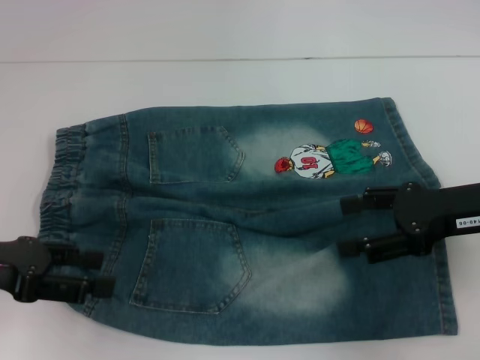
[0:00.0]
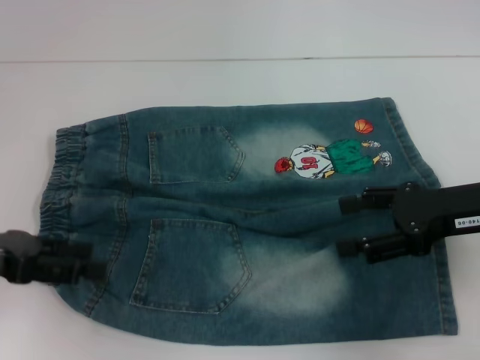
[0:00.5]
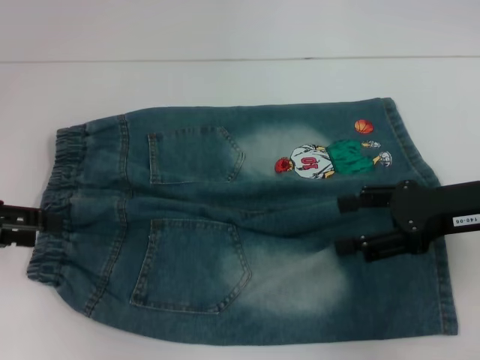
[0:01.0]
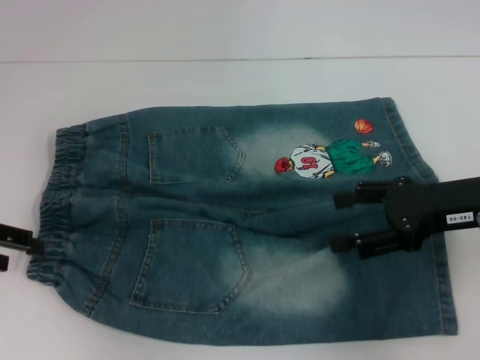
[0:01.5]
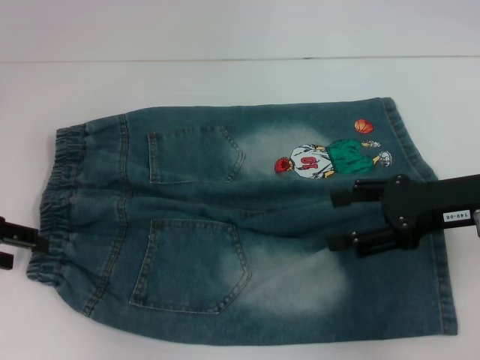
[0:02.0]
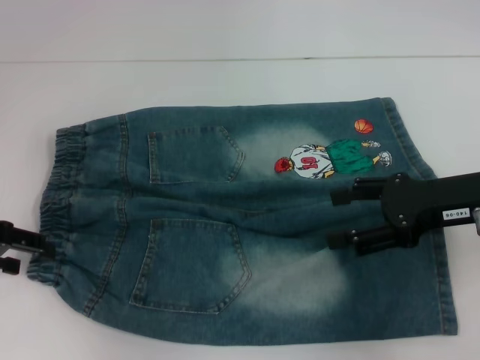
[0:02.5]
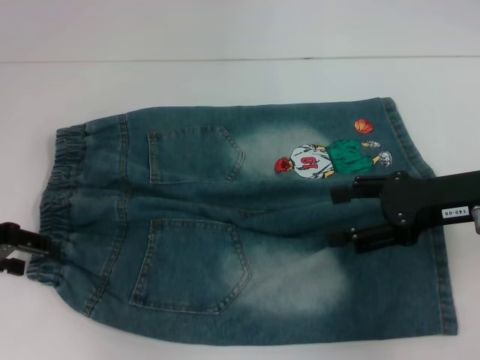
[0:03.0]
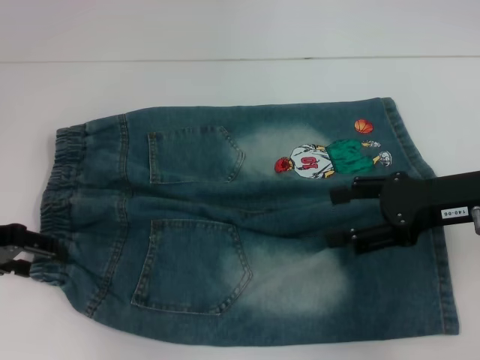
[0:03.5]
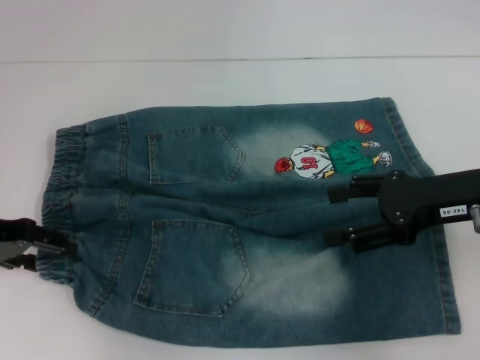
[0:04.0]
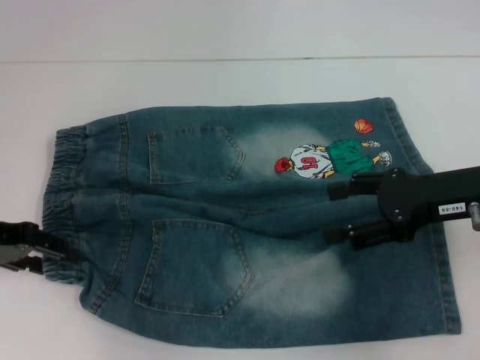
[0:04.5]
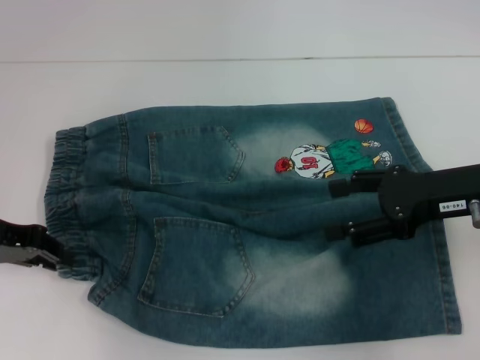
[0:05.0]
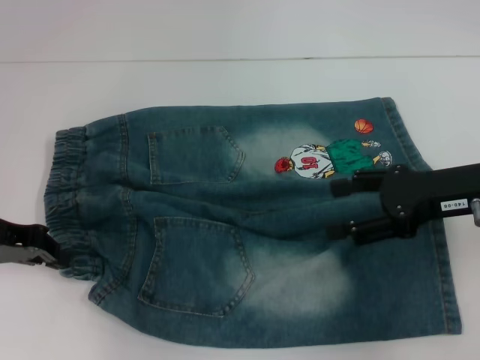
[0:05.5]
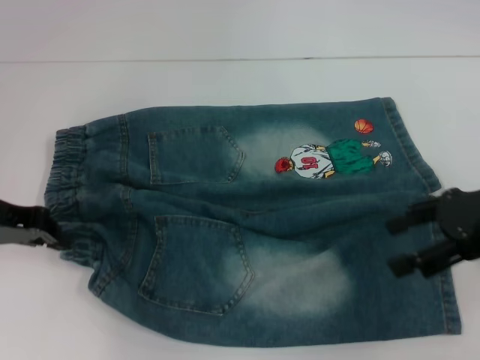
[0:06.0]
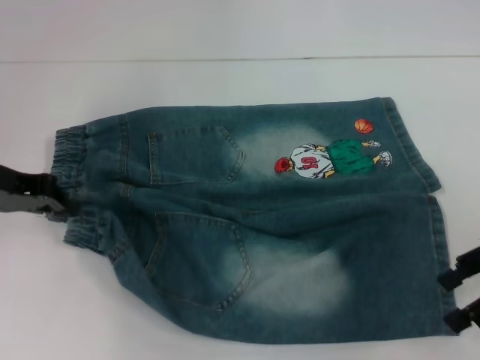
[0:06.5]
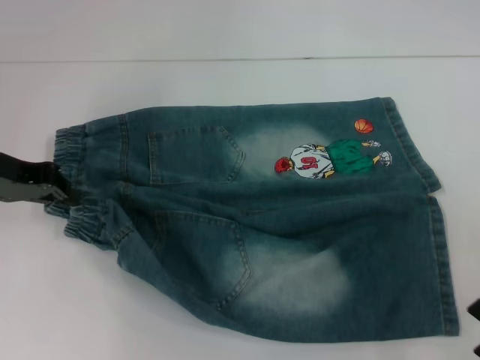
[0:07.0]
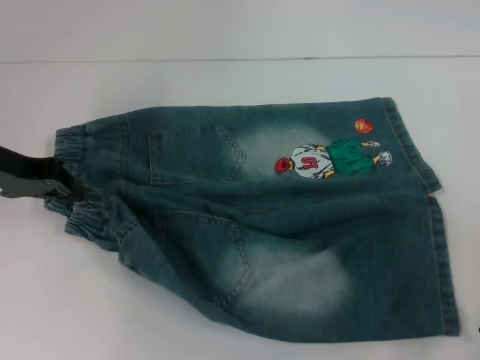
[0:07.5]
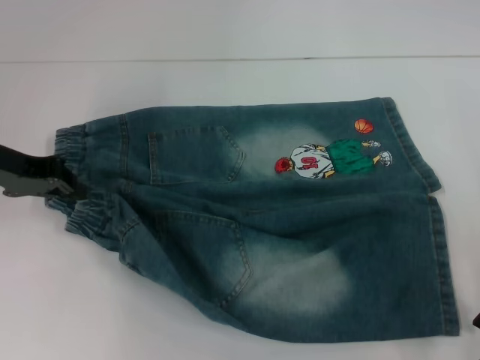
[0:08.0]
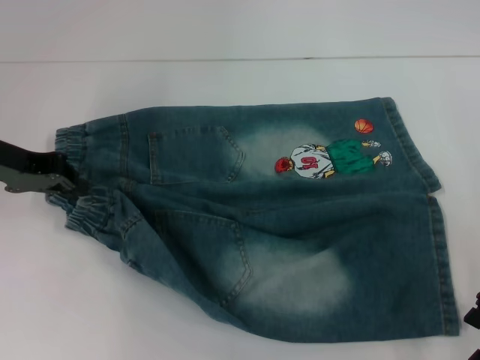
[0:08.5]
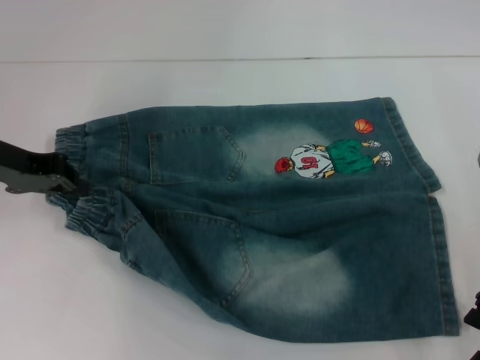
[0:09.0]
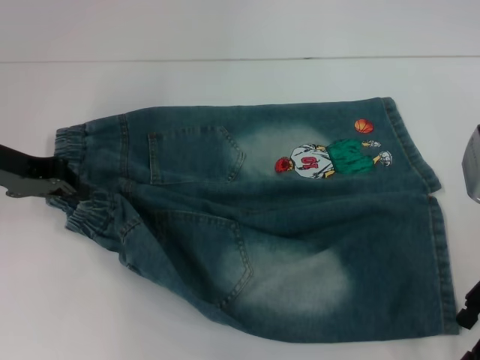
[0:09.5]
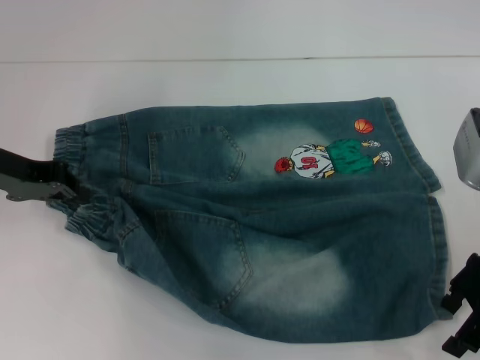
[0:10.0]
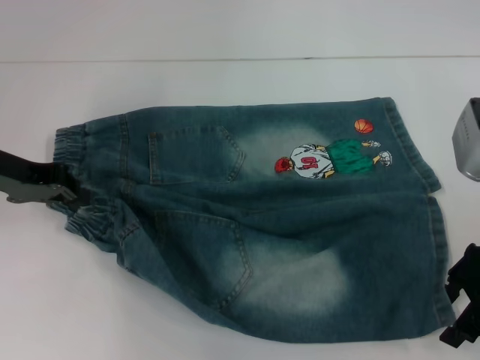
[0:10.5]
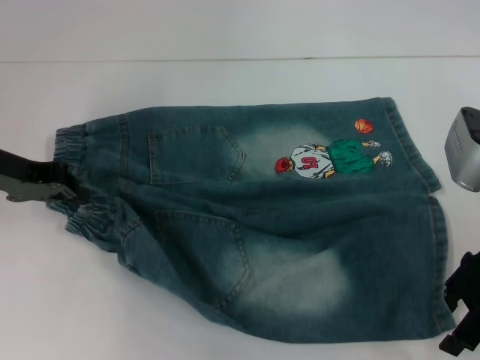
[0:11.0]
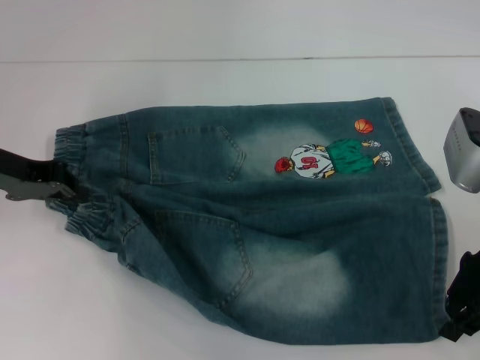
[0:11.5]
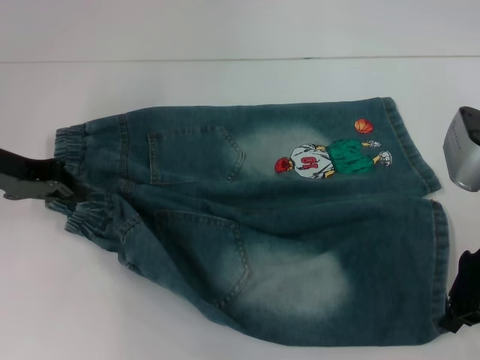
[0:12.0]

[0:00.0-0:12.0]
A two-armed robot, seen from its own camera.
Step, 0:00.0 to 0:05.5: Hold the lower left waistband with your left hand.
Step, 0:06.0 to 0:11.5: Grab the lower right pant leg with your right hand.
0:00.0 to 0:02.0: The left gripper shifts about 5 cm forward.
0:02.0 to 0:04.0: There are only small adjustments of the grippers.
0:04.0 to 0:06.0: The left gripper closes its fingers.
0:08.0 to 0:10.0: There are only small adjustments of the grippers.
0:10.0 to 0:12.0: The right gripper closes.

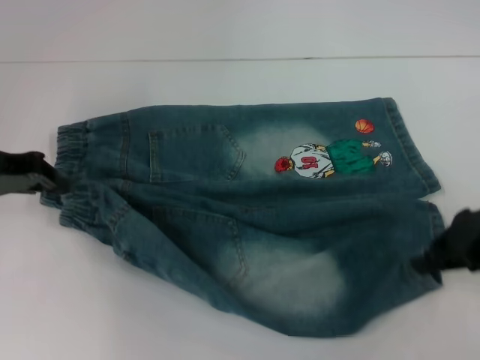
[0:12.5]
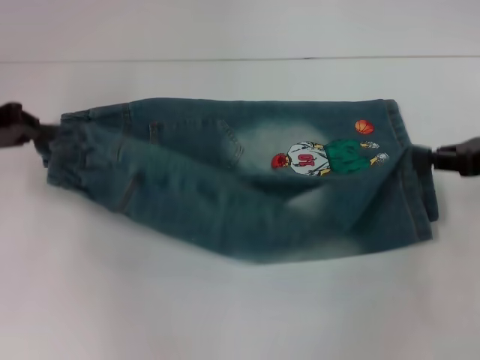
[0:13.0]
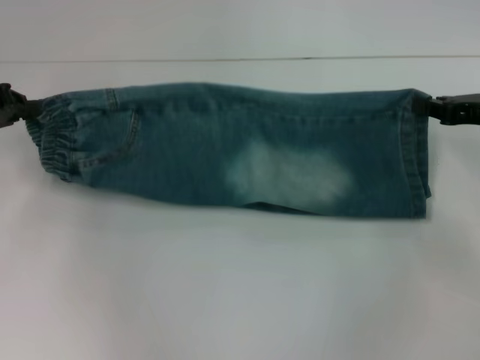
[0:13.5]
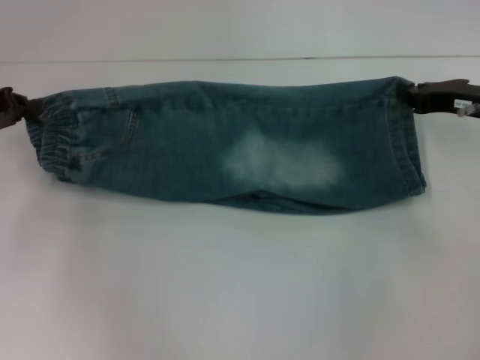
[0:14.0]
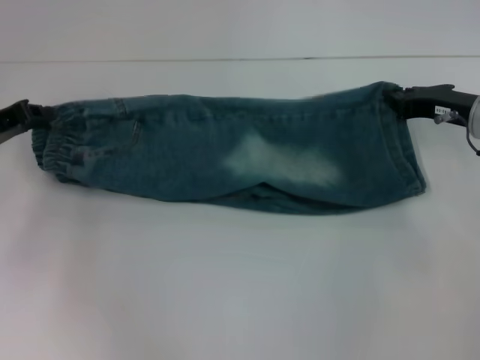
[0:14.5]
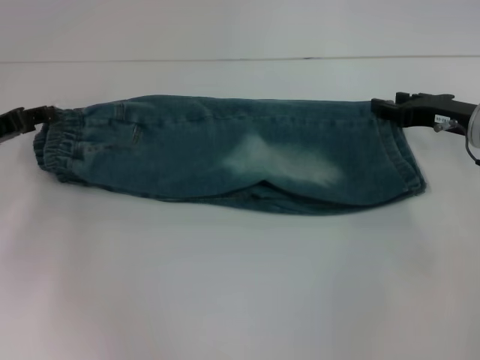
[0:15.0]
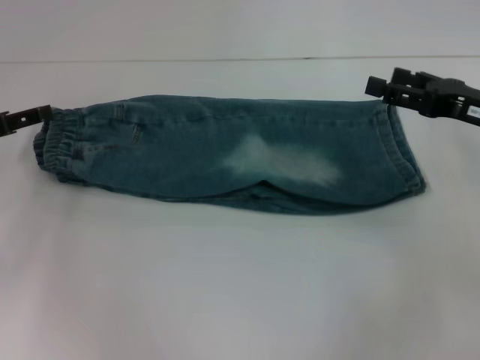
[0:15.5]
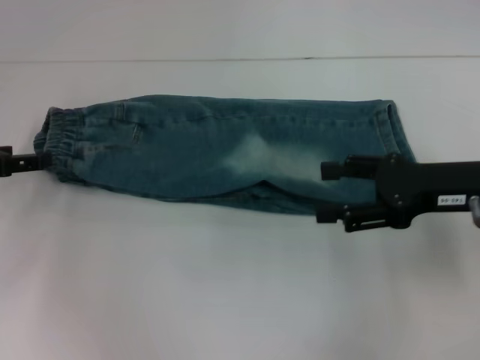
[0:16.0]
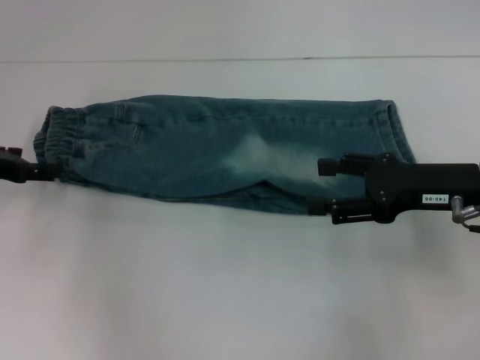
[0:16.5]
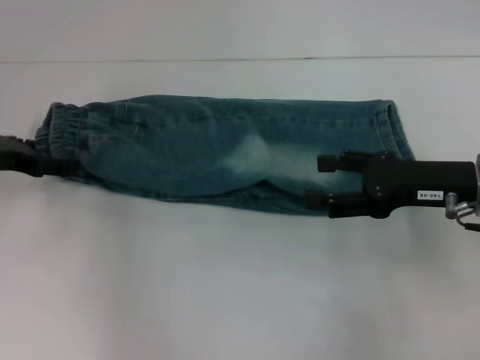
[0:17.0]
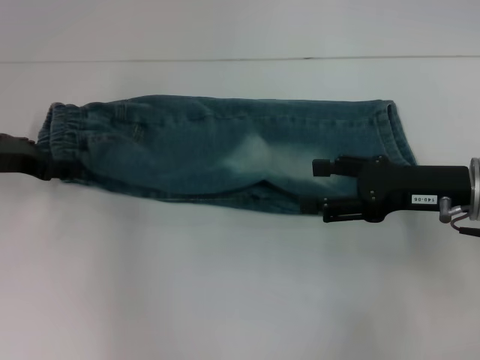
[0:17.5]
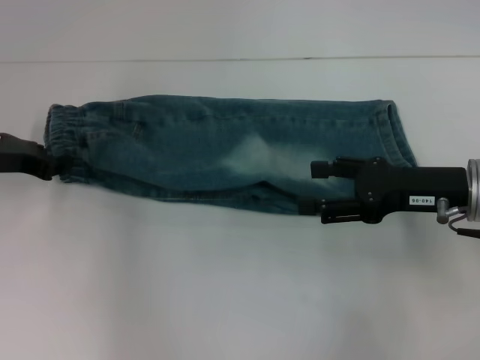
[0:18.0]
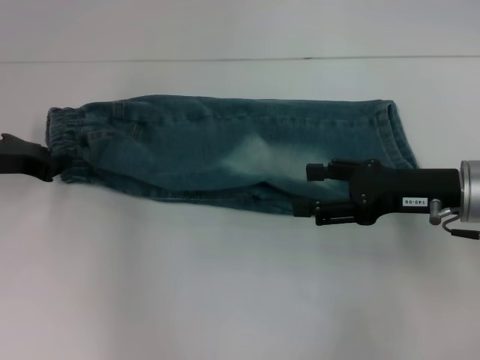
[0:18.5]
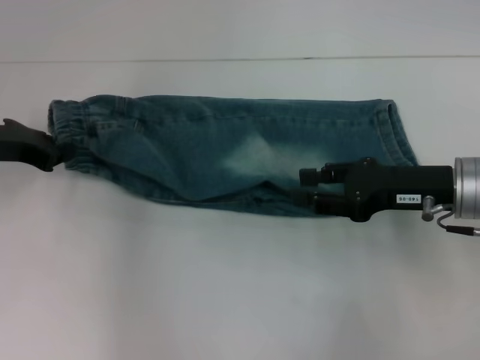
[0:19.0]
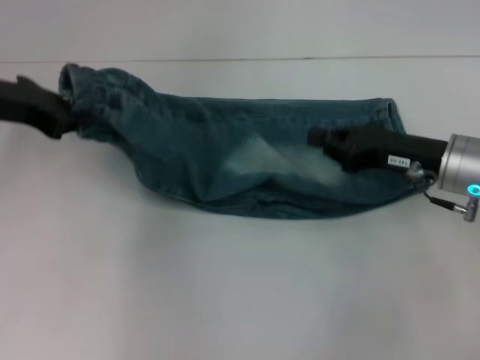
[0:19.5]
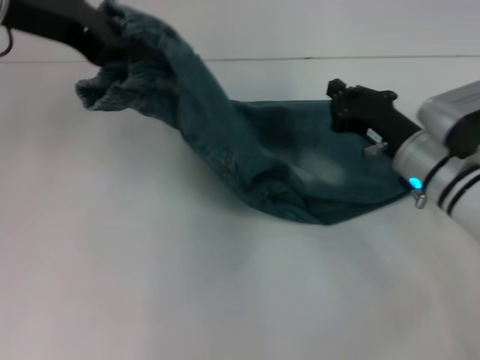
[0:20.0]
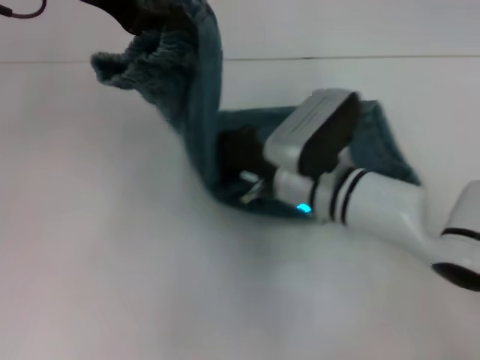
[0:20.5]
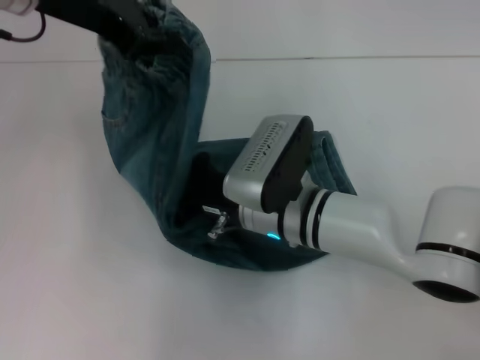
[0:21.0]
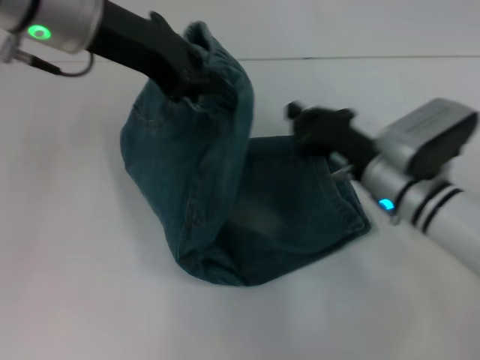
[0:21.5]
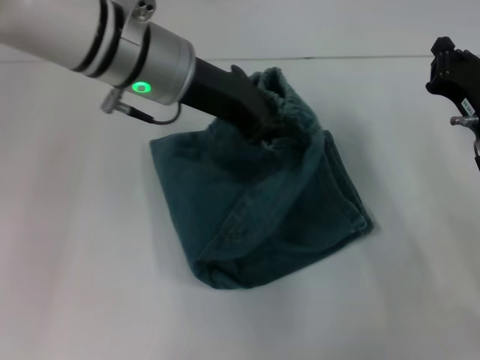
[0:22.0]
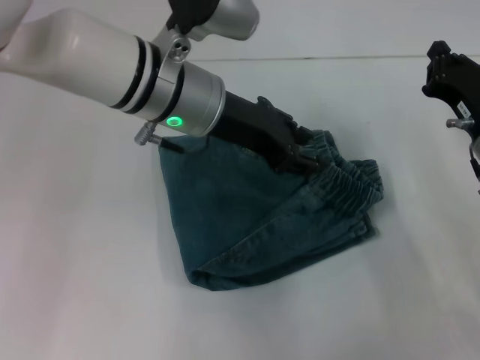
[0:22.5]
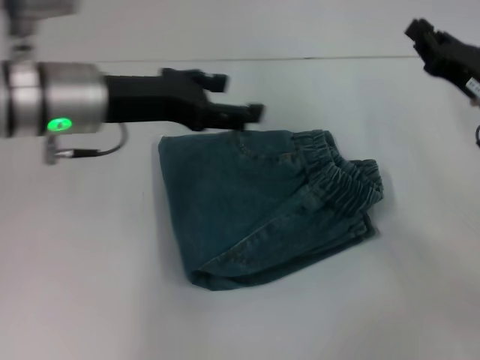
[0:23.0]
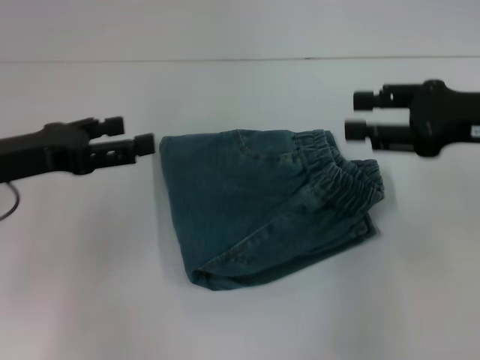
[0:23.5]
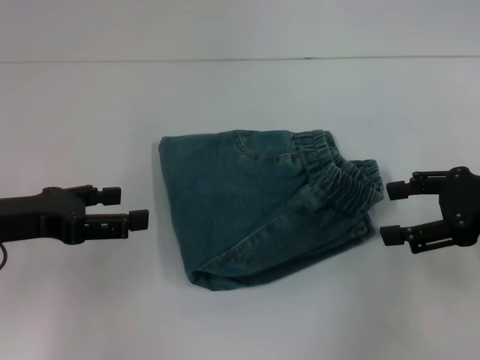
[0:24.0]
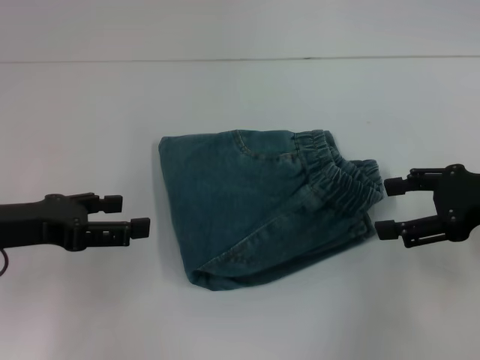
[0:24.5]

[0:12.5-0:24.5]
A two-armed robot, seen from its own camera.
Step, 0:12.5 to 0:14.5: Fold upward with your right hand.
Step, 0:15.0 to 0:18.0: Hold the waistband with your left hand.
Step, 0:18.5 to 0:21.0: Press the middle of the pants with your right hand.
Step, 0:21.5 to 0:22.0: Fold to the right with your left hand.
0:12.5 to 0:14.5: The right gripper goes roughly 5 cm forward.
0:14.5 to 0:16.5: The left gripper opens up. The right gripper shifts about 10 cm backward, and opens up.
0:16.5 to 0:18.5: The left gripper closes.
0:18.5 to 0:20.5: The left gripper heads upward and to the right, covering about 25 cm. Meanwhile the right gripper is displaced to the left by some 15 cm, and closes up.
0:20.5 to 0:22.5: The right gripper travels to the right by some 20 cm. Meanwhile the left gripper heads downward and to the right, covering some 15 cm.
0:22.5 to 0:24.5: The left gripper goes roughly 25 cm to the left and backward, and opens up; the right gripper heads upward, covering some 10 cm, and opens up.

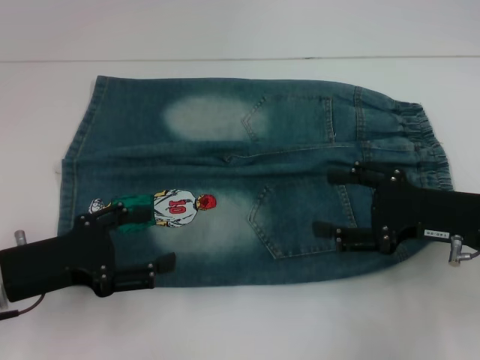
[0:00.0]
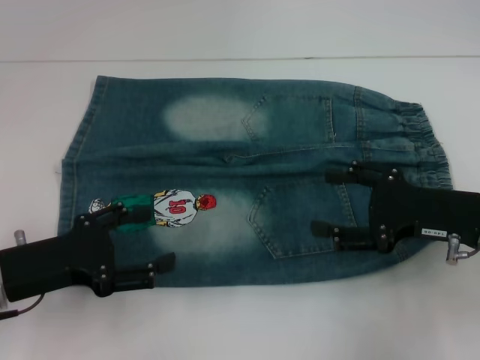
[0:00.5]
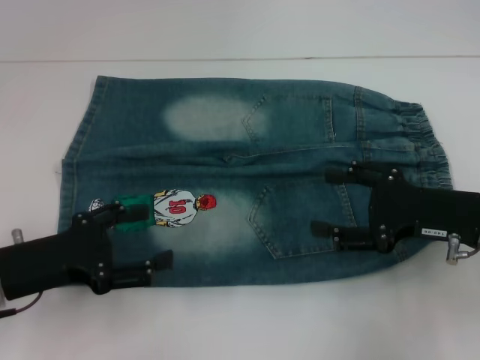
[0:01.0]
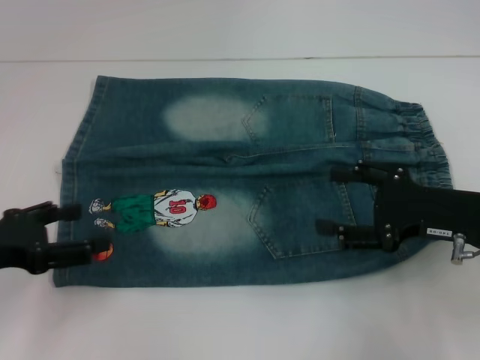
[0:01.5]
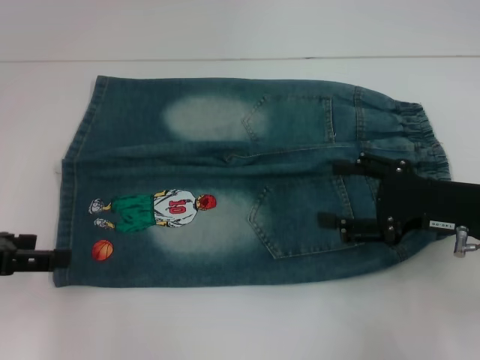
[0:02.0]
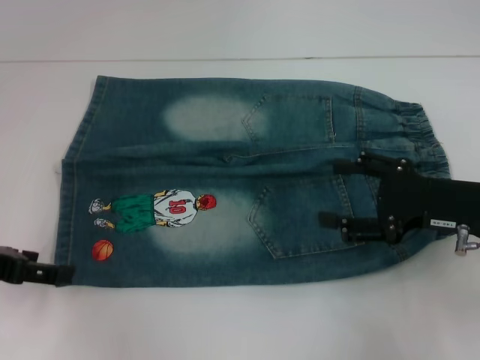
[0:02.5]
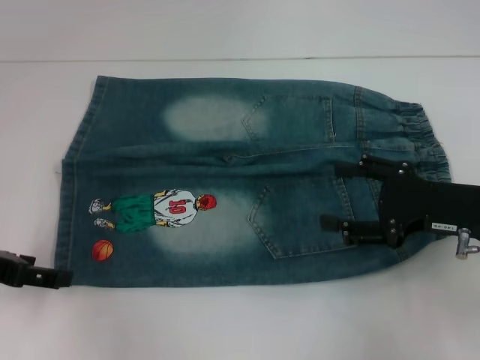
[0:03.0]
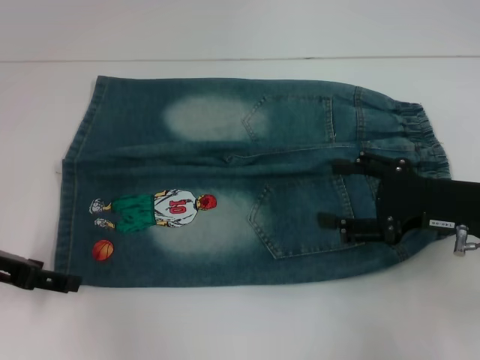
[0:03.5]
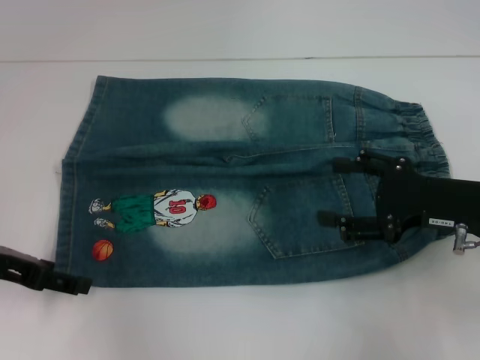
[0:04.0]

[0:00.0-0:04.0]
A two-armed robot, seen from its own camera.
0:00.0 to 0:02.0: The left gripper is displaced to the left and upward by roughly 10 cm.
0:02.0 to 0:04.0: There are only small adjustments of the grippers.
